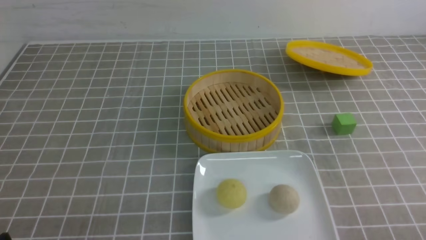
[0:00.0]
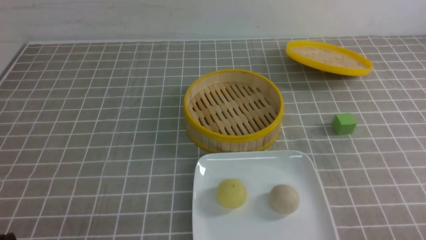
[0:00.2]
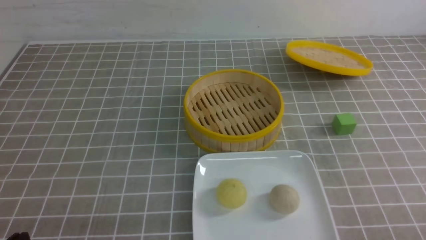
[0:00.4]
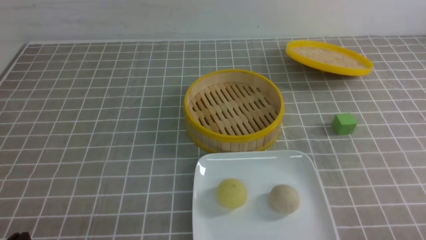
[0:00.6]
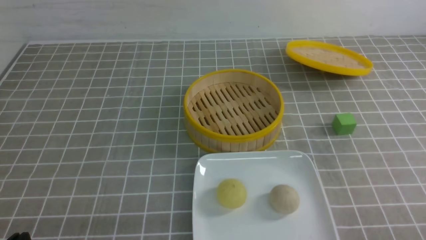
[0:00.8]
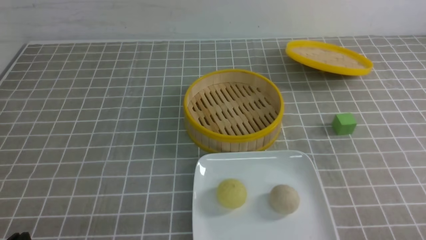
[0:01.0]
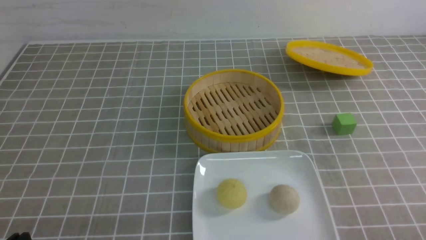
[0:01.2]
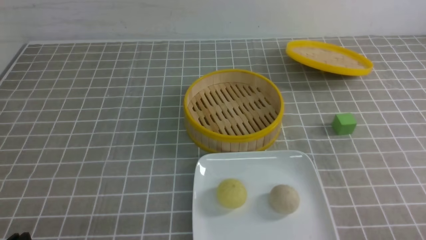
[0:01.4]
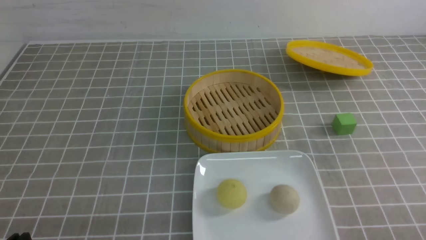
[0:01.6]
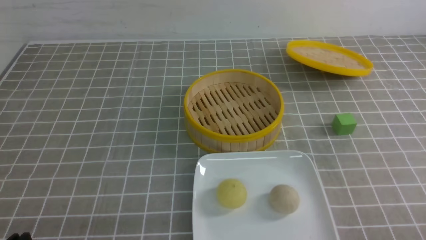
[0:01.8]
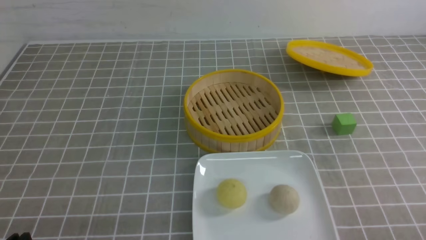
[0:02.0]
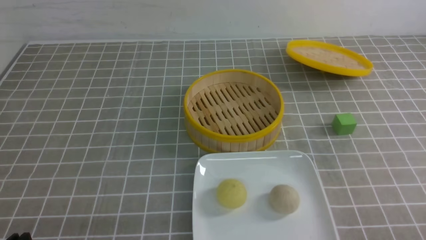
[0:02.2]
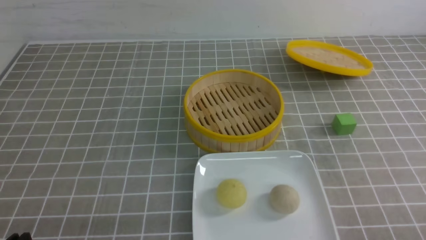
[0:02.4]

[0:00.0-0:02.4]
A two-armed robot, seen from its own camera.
0:01.2 to 0:02.4: The two grippers keep their place.
